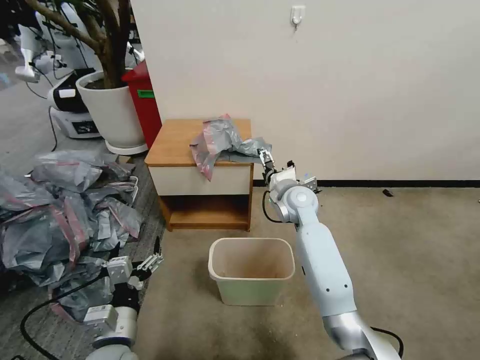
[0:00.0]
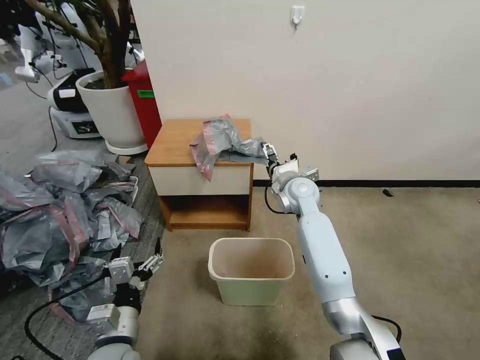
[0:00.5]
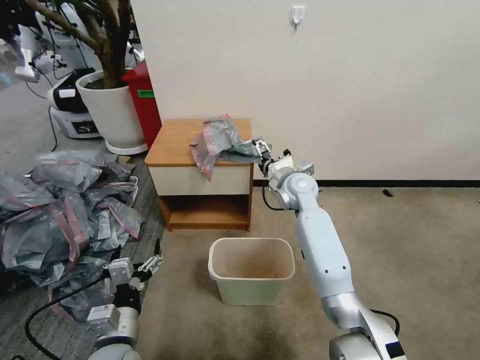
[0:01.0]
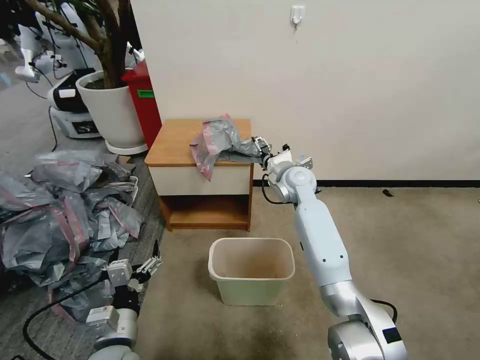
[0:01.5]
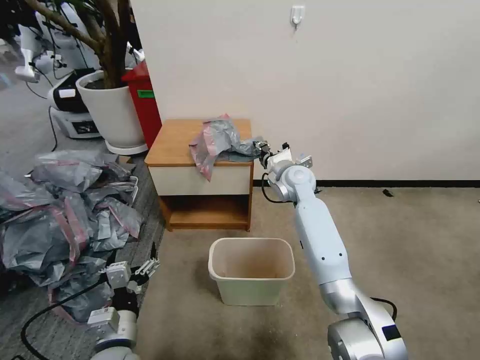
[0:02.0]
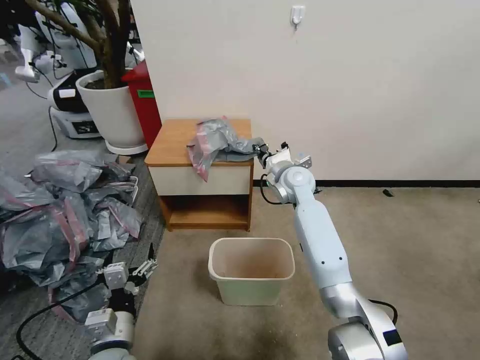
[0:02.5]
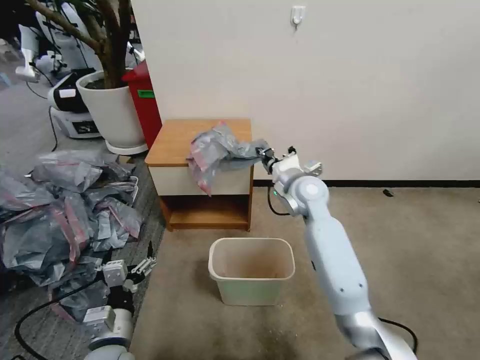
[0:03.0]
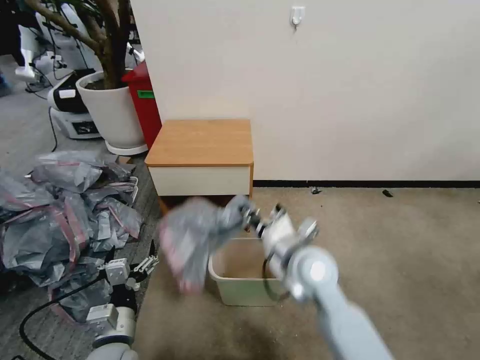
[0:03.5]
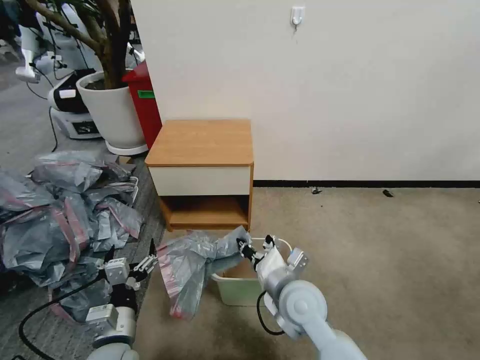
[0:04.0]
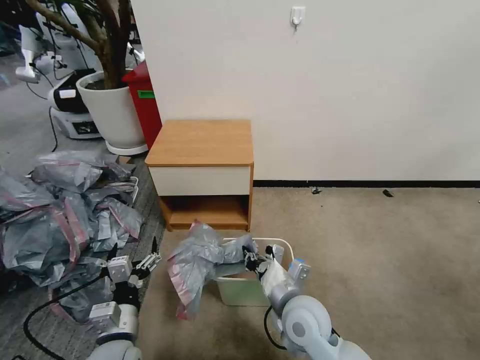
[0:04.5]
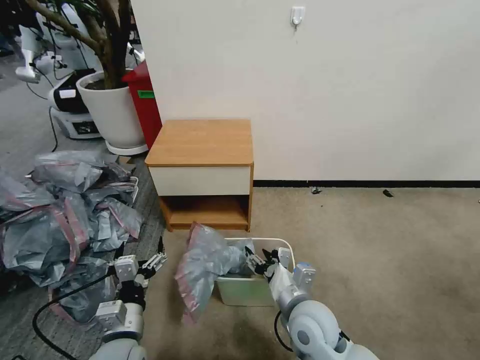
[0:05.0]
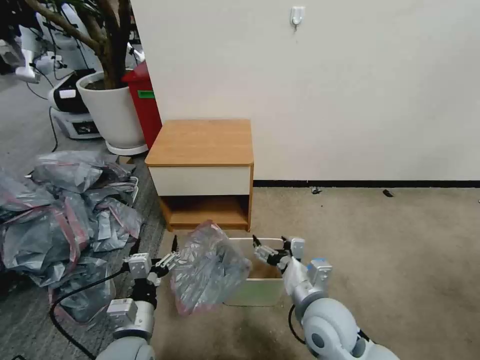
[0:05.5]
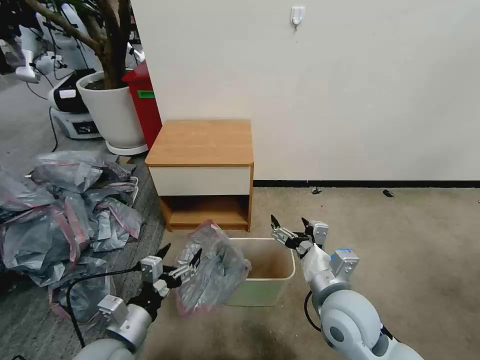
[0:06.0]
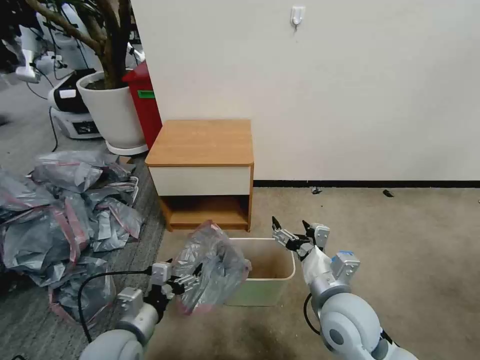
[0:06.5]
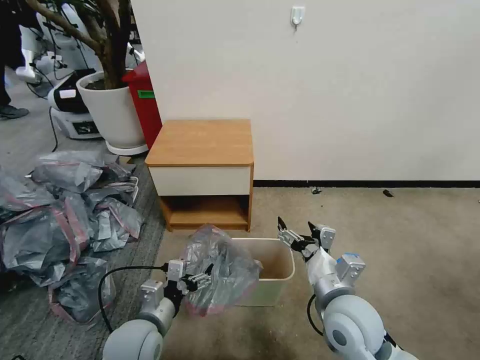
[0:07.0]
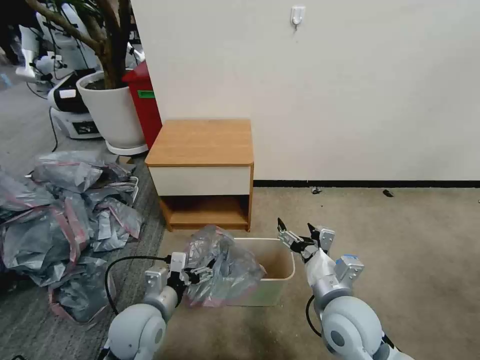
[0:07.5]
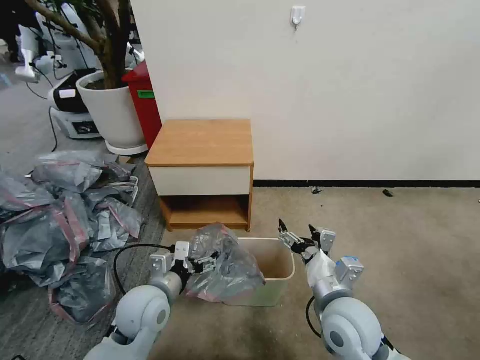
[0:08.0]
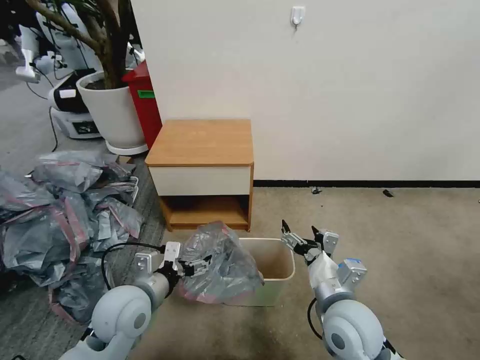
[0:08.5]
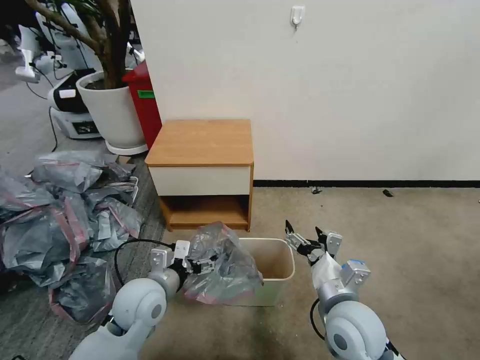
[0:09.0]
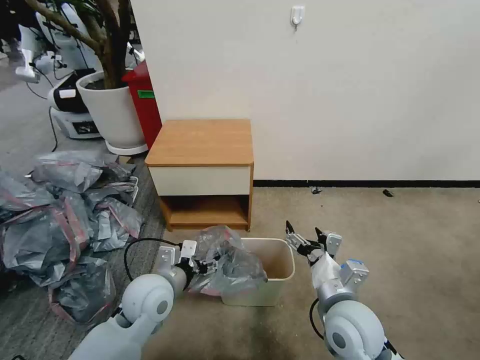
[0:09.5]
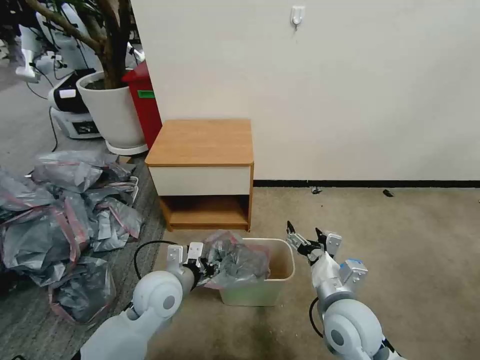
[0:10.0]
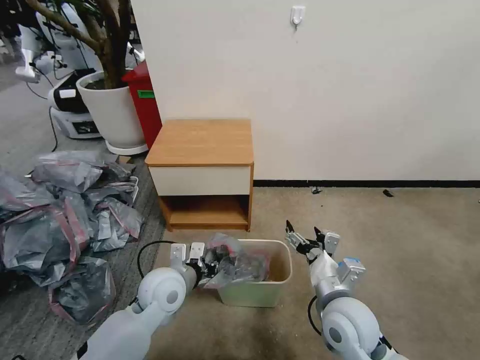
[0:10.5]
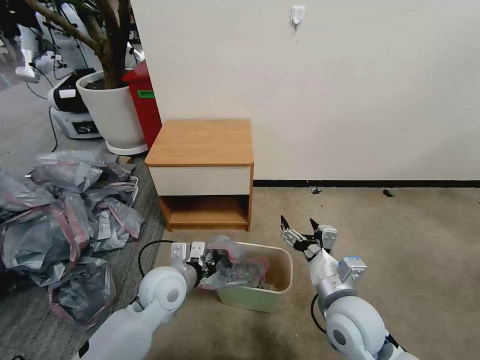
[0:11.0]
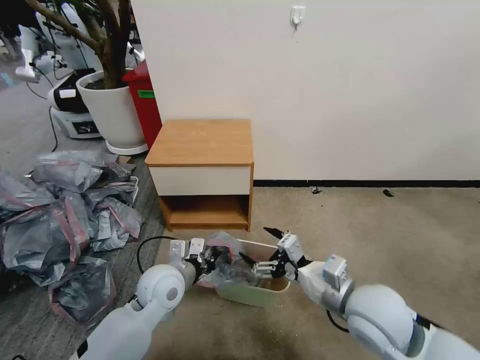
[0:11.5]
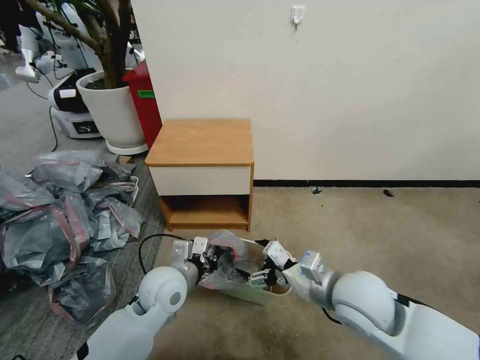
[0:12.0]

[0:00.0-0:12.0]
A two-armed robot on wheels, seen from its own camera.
Task of the whole recording: Pick up the garbage bag from the table and place it over the trash can.
0:00.0 to 0:02.0: The right gripper moves forward, approximately 5 cm, and closes its fingers.
0:02.0 to 0:04.0: The right gripper moves backward, about 25 cm.
0:04.0 to 0:06.0: The right gripper moves to the right, approximately 5 cm, and opens.
0:06.0 to 0:08.0: The left gripper is displaced forward by approximately 10 cm.
0:08.0 to 0:10.0: The left gripper closes its fingers.
0:10.0 to 0:12.0: The right gripper heads upward, covering about 5 cm; the left gripper closes.

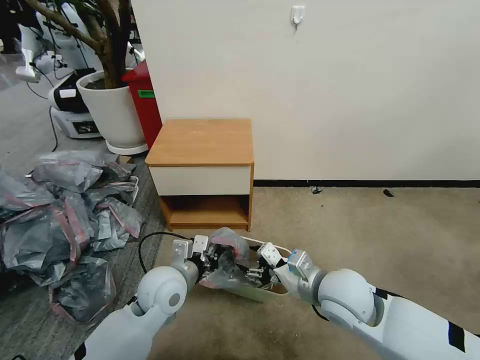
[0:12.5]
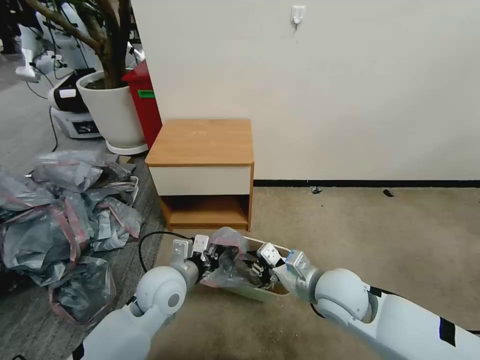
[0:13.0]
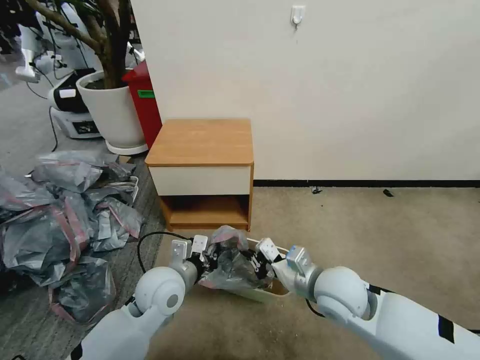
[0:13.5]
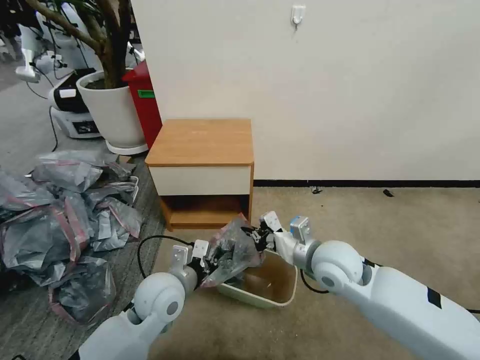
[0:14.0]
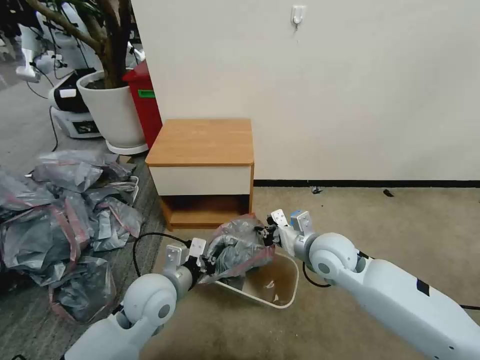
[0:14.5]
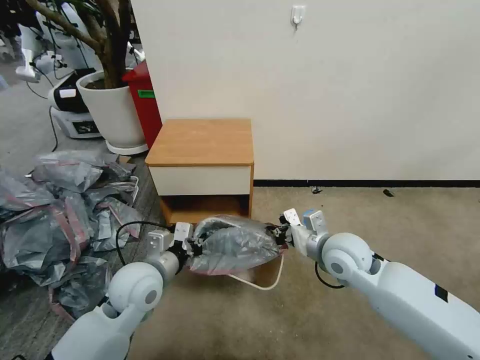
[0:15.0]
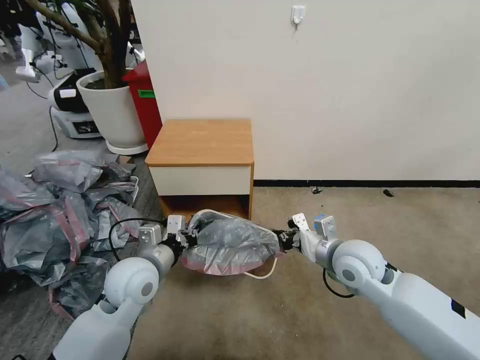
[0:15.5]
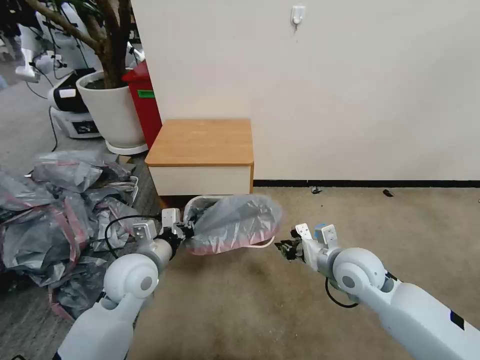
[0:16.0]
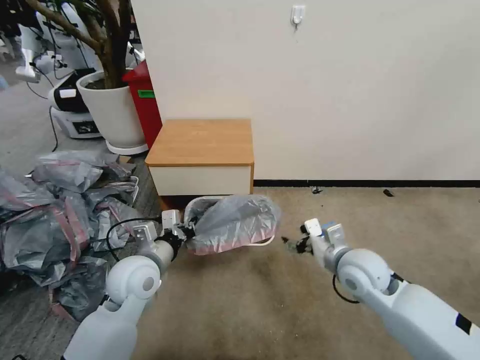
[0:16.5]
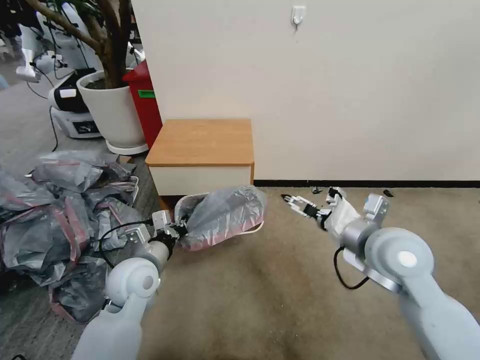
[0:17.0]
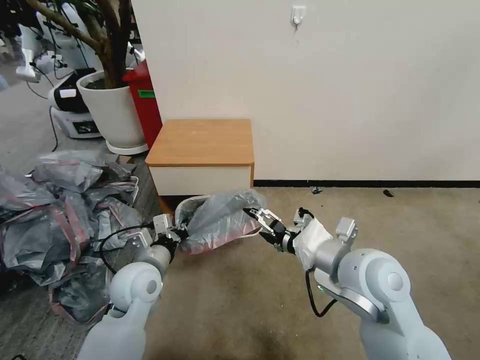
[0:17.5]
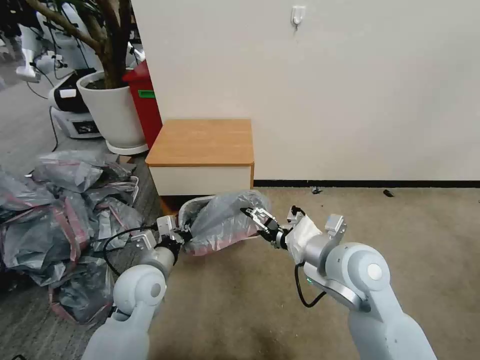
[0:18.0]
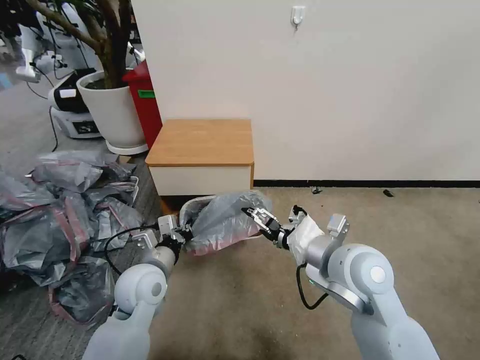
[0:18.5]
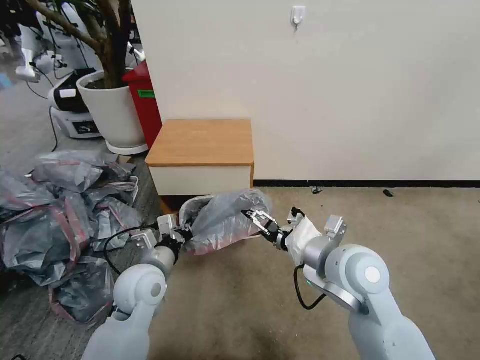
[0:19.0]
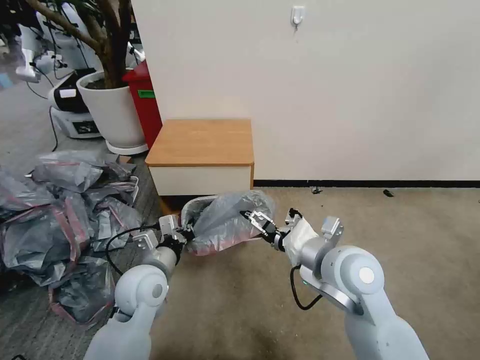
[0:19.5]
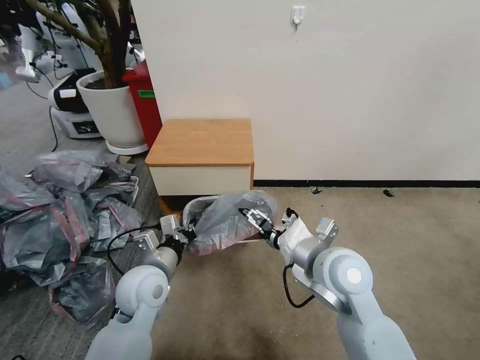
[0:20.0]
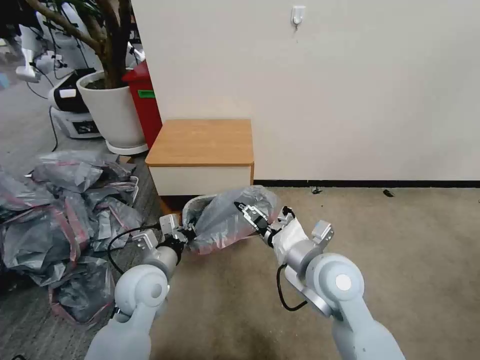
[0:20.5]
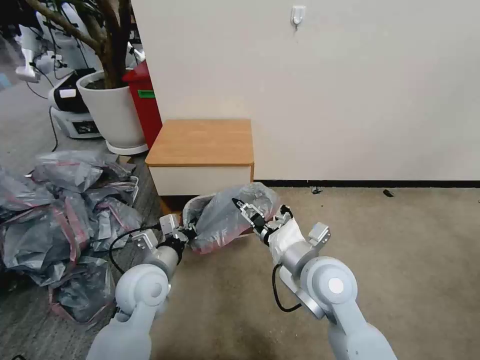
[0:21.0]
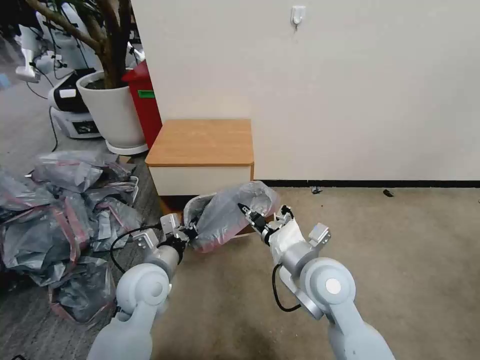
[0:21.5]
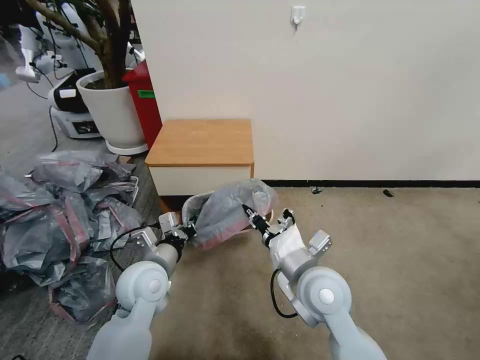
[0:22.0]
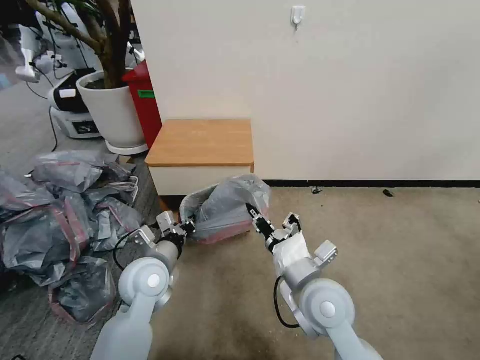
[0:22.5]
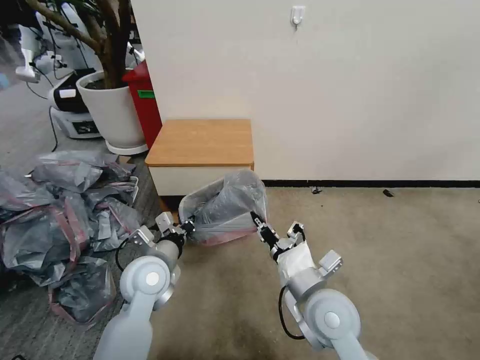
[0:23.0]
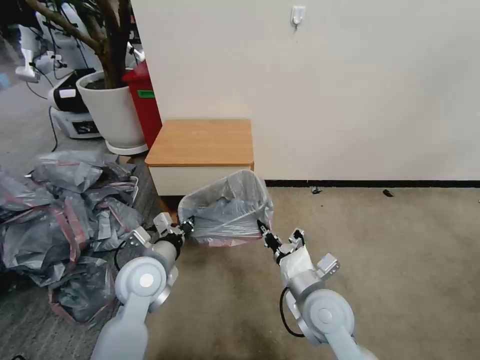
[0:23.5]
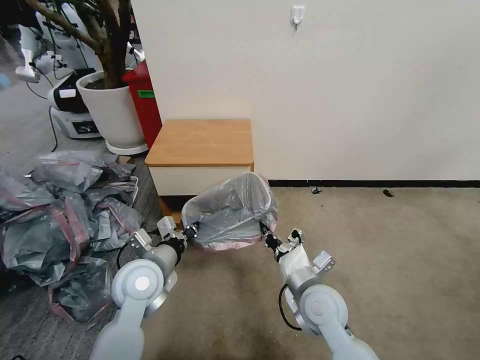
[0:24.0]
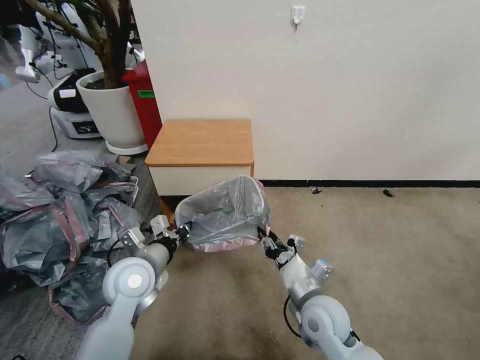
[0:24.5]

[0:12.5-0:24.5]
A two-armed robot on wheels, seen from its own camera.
Task of the whole recording: Pick up the garbage bag from the table and place it over the trash can.
0:12.5 to 0:14.5: The right gripper goes roughly 10 cm forward, and closes its fingers.
0:14.5 to 0:16.5: The right gripper goes about 5 cm to the right, and opens its fingers, while the left gripper changes place by some 5 cm.
0:16.5 to 0:18.5: The right gripper is displaced upward and to the left by roughly 10 cm.
0:18.5 to 0:20.5: The grippers make only small movements.
0:20.5 to 0:22.5: The right gripper changes place by about 5 cm, and closes.
0:22.5 to 0:24.5: The right gripper travels downward by about 10 cm.

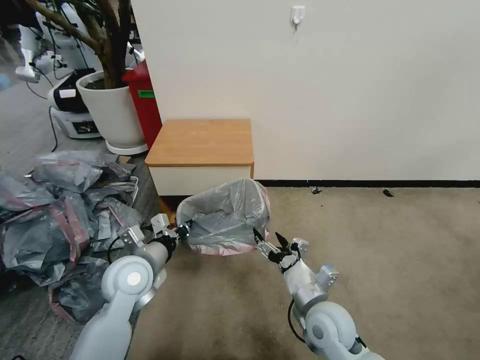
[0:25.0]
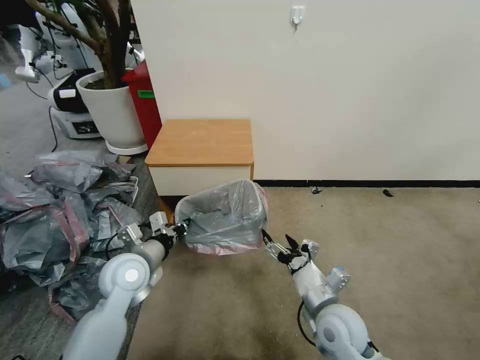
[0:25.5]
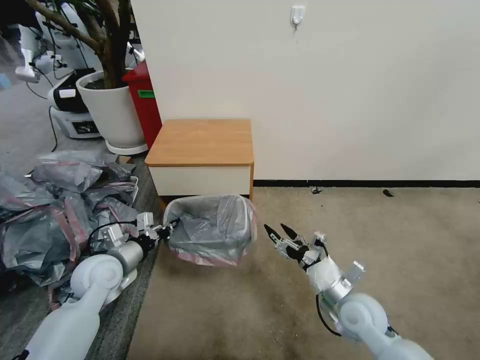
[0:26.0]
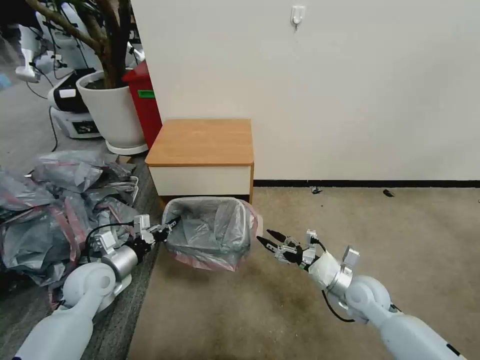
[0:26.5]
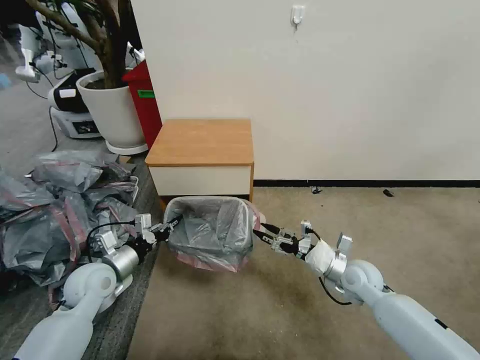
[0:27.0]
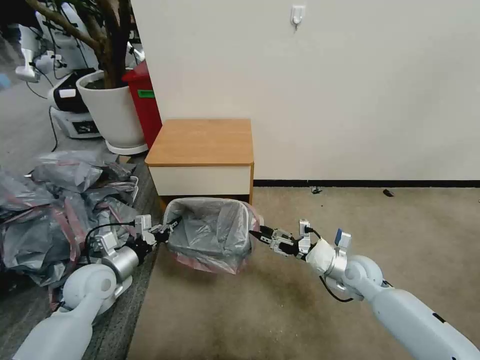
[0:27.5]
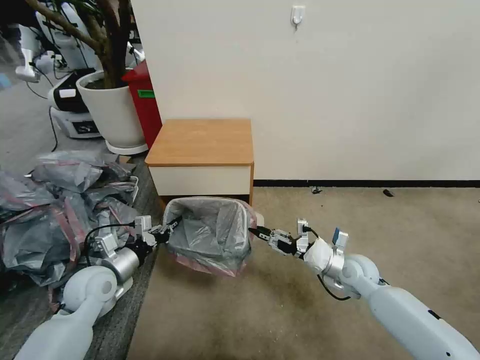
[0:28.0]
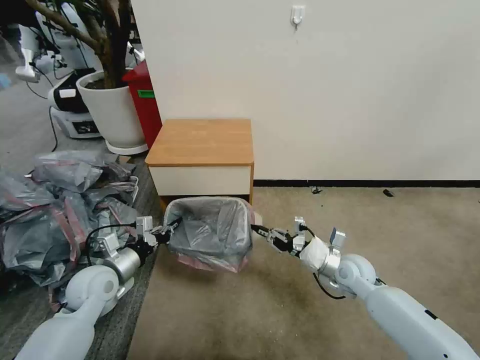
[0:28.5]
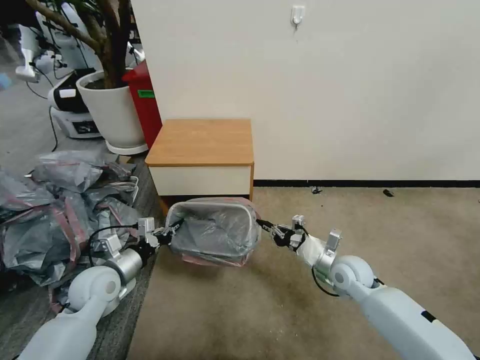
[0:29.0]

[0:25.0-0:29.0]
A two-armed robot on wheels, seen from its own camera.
Task of the whole recording: Pick up the garbage bag from the table and place it over the trash can.
0:25.0 to 0:27.0: The left gripper travels to the left by roughly 10 cm. The right gripper travels to the right and forward by roughly 15 cm.
0:27.0 to 0:29.0: The right gripper closes its fingers.
